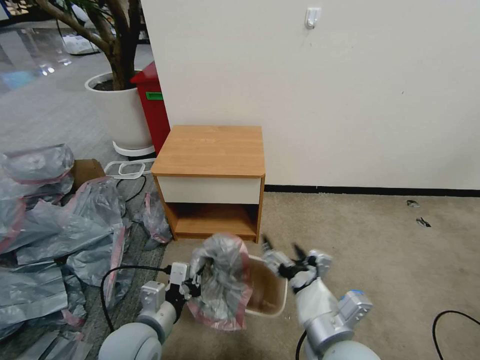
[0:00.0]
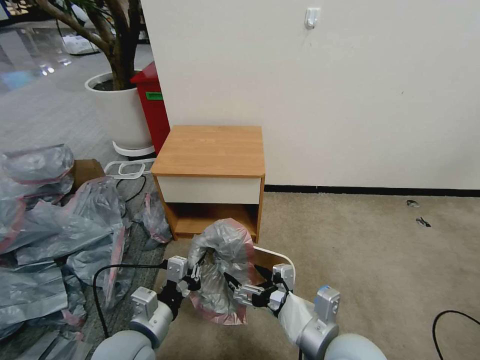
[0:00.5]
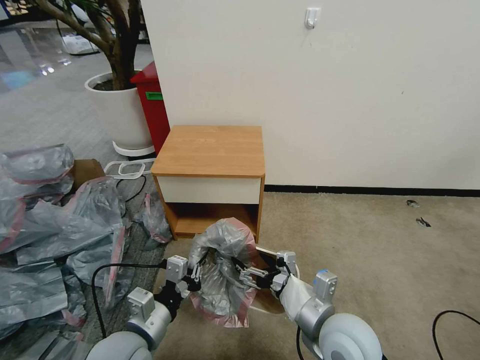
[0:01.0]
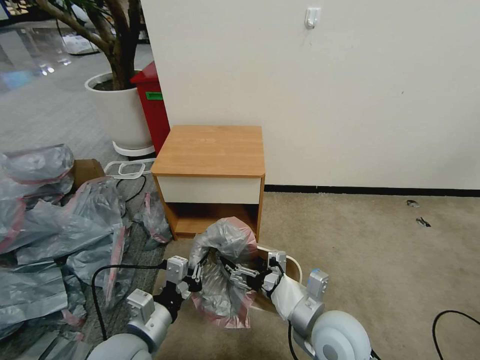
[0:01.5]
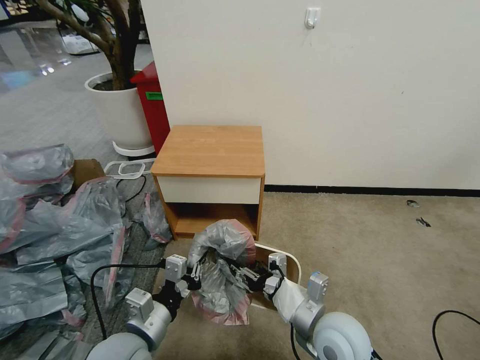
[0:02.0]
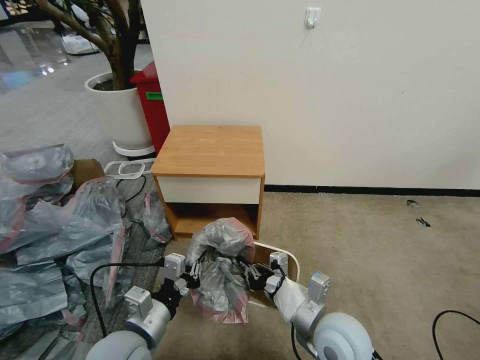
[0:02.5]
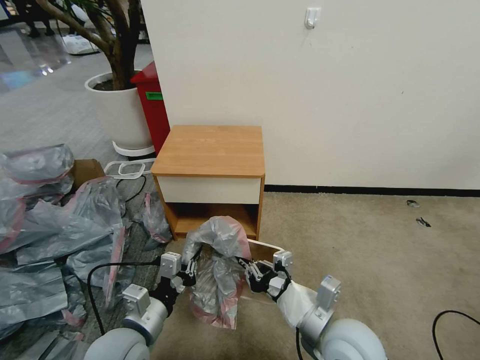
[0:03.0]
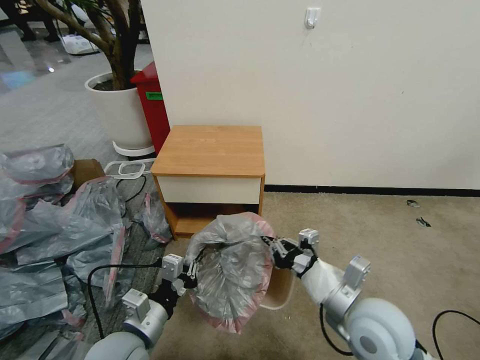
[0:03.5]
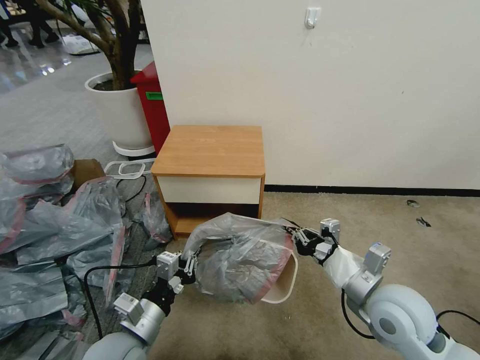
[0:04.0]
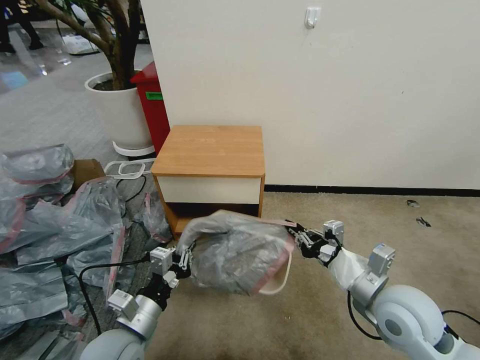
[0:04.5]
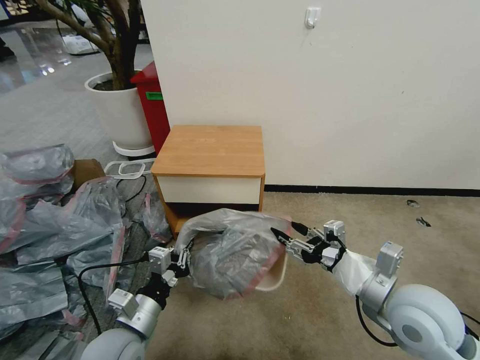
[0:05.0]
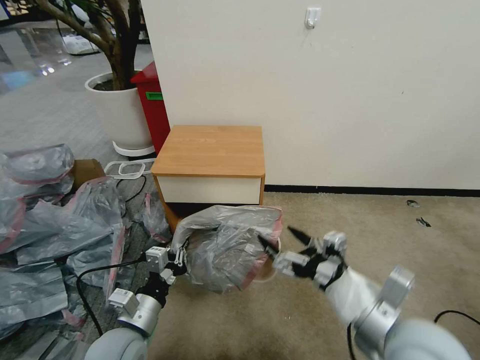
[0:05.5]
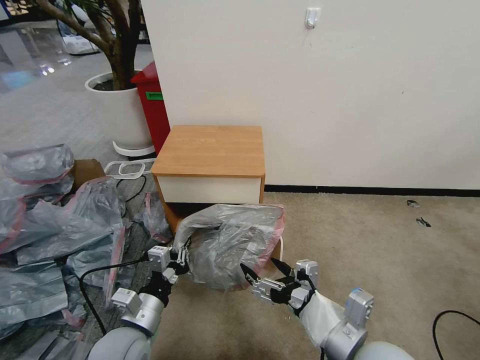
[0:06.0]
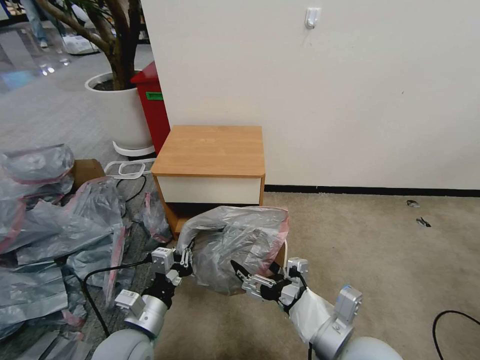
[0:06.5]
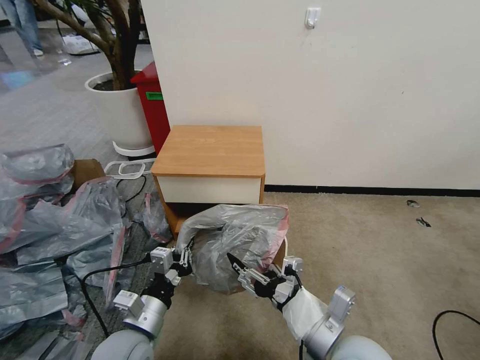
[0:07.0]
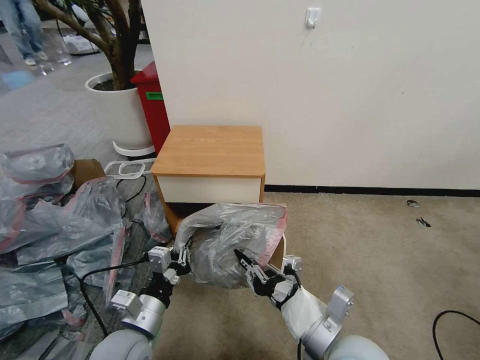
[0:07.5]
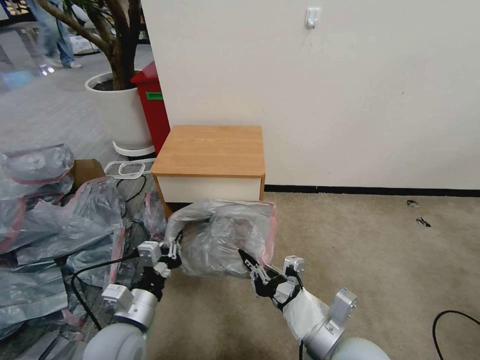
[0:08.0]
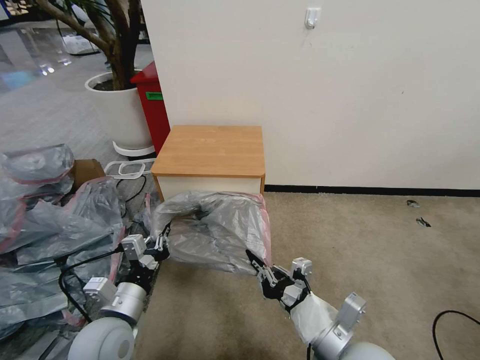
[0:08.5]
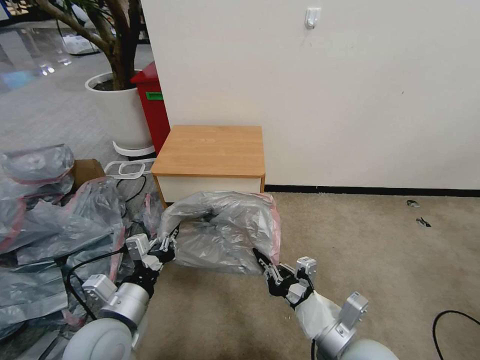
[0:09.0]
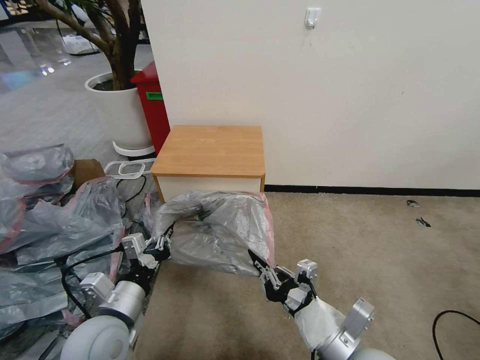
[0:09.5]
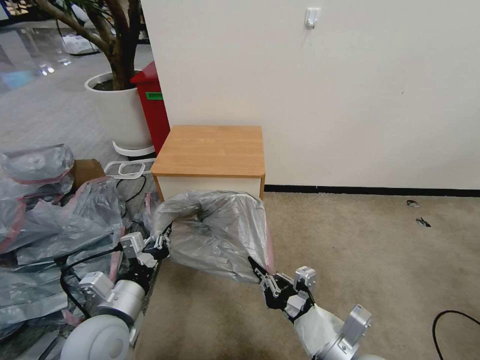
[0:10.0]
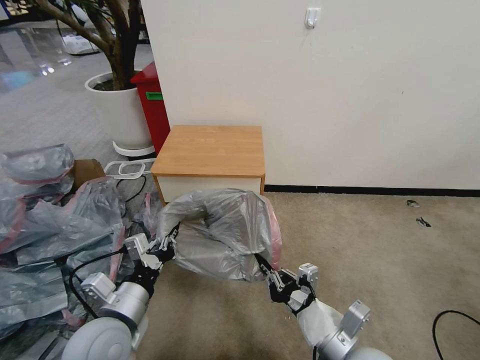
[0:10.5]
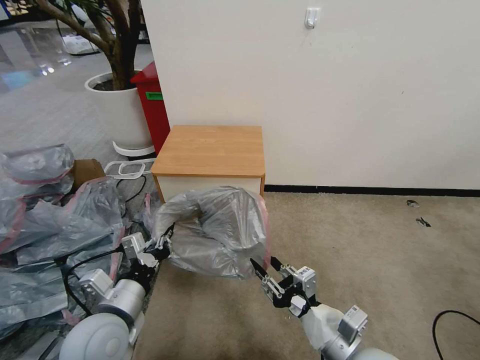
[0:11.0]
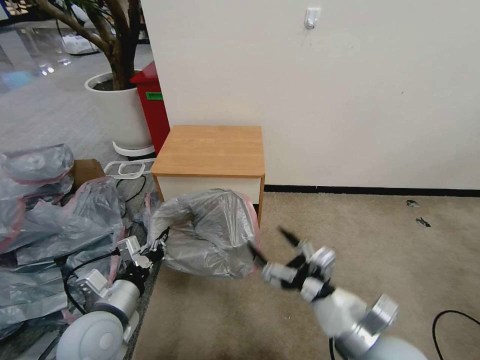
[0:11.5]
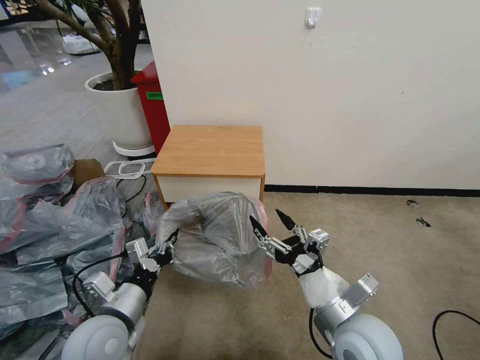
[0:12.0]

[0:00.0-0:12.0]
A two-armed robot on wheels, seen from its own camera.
Task of the whole recording: Pick up the garbage bag from the table and place it over the trash can.
0:00.0 to 0:02.0: The right gripper goes some 10 cm forward and downward, and closes.
0:02.0 to 0:04.0: The right gripper moves to the right and upward, approximately 10 cm, and closes.
0:04.0 to 0:06.0: The right gripper shifts some 10 cm backward and to the left, and opens its fingers.
0:06.0 to 0:08.0: The right gripper closes up.
0:08.0 to 0:10.0: The grippers move only a little.
0:10.0 to 0:12.0: The right gripper heads forward, covering approximately 5 cm, and opens its fingers.

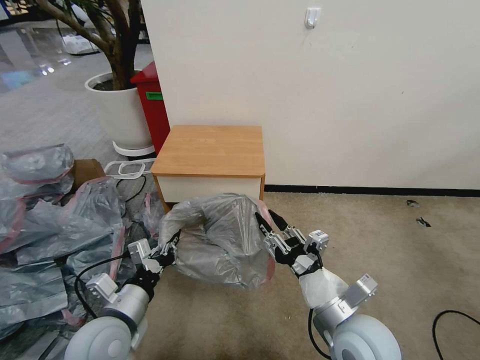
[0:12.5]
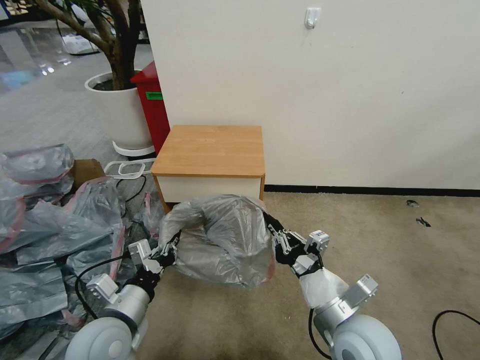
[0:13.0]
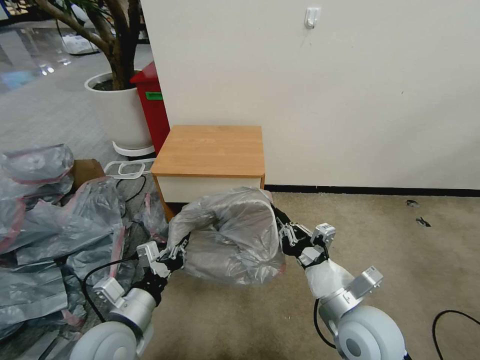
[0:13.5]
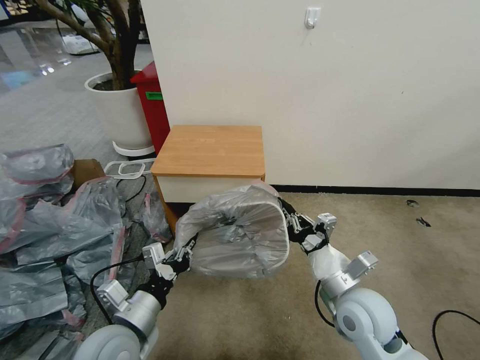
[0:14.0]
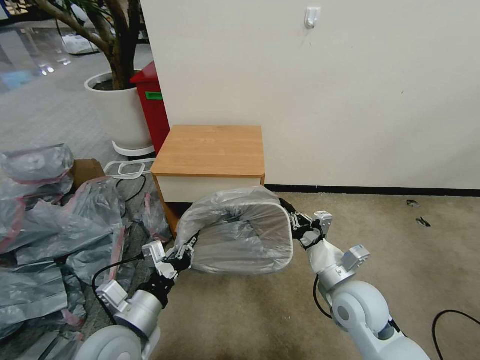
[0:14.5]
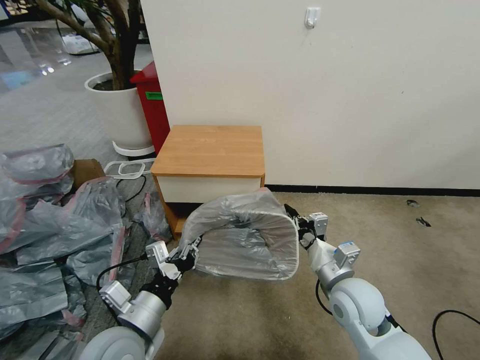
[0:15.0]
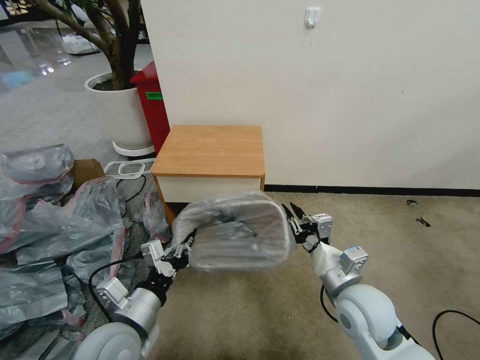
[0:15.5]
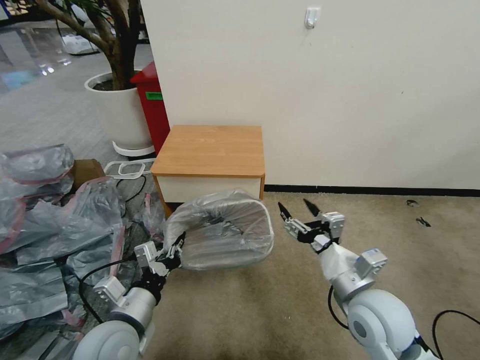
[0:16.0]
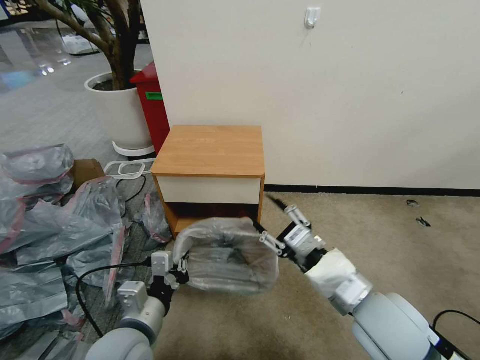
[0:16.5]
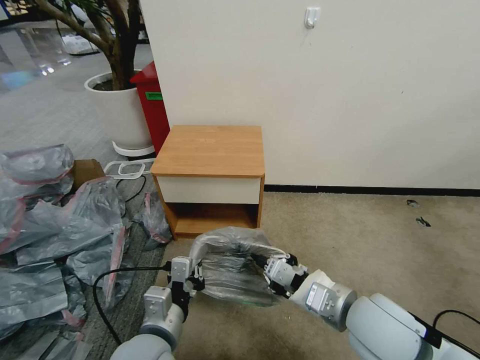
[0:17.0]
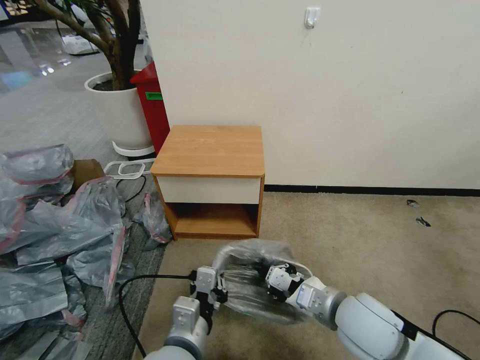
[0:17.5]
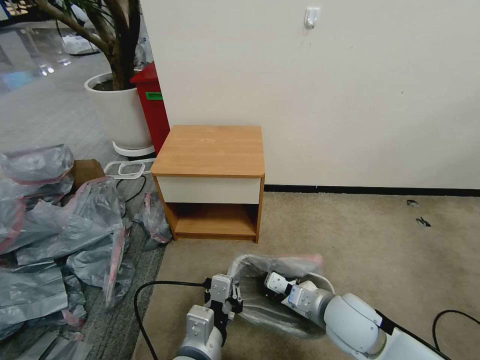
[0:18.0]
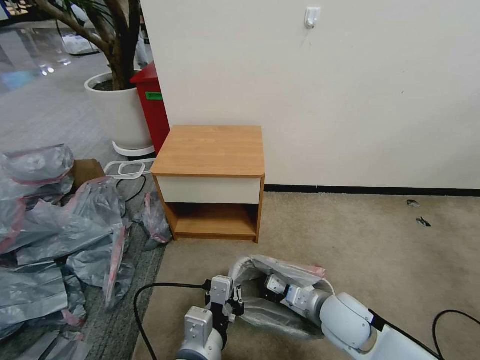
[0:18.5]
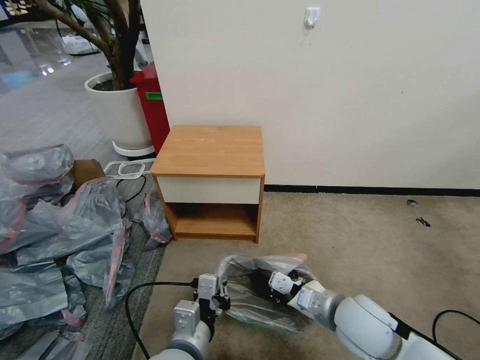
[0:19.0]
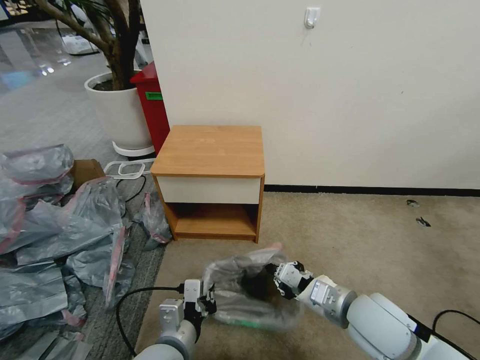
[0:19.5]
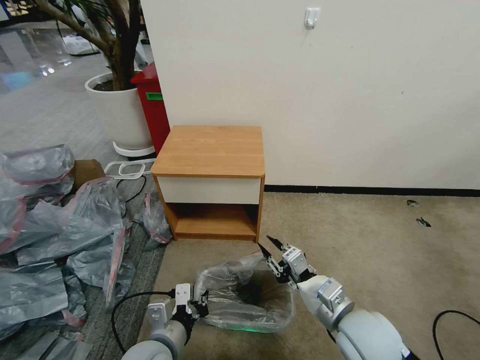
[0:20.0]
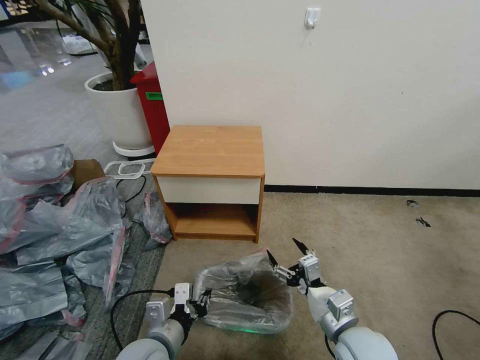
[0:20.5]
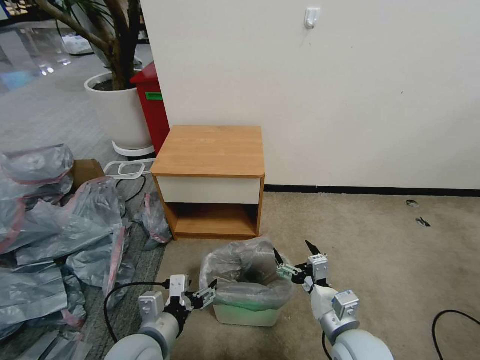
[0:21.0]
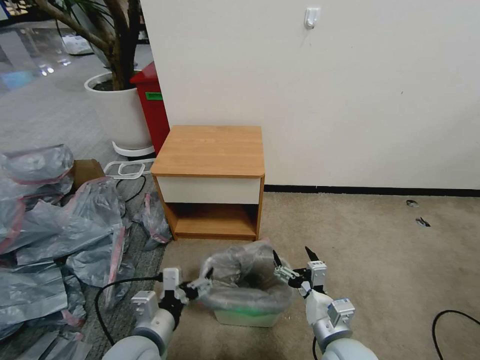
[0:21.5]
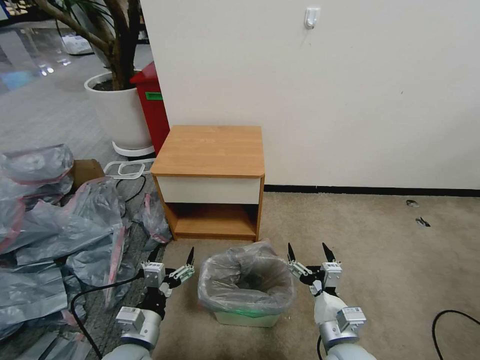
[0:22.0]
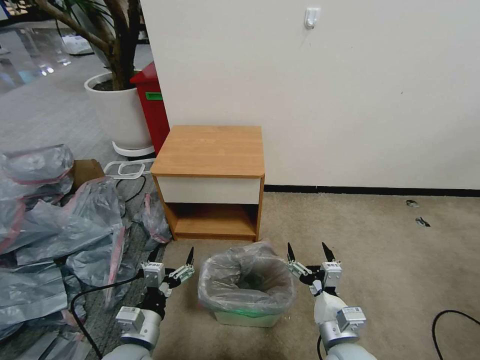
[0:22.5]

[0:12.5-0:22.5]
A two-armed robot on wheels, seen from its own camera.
Task of the whole recording: Pick up the garbage bag from the table and place it over the trash can.
0:12.5 to 0:14.5: The right gripper travels forward by some 5 cm, and closes up.
0:14.5 to 0:16.5: The right gripper moves upward and backward, some 10 cm, and opens up.
0:16.5 to 0:18.5: The left gripper shifts some 10 cm to the right. The right gripper goes approximately 15 cm downward, and closes up.
0:18.5 to 0:20.5: The left gripper moves to the left and downward, approximately 10 cm, while the right gripper heads backward, covering about 5 cm, and opens.
0:20.5 to 0:22.5: The left gripper moves approximately 5 cm, and opens.

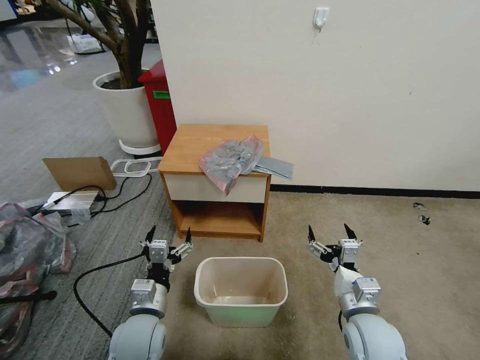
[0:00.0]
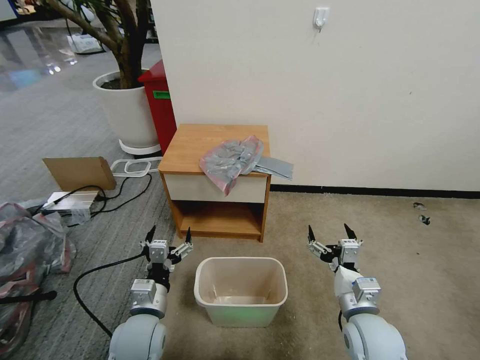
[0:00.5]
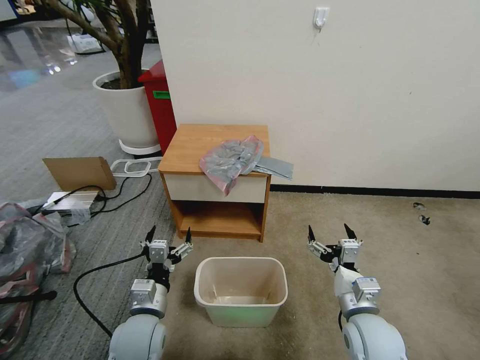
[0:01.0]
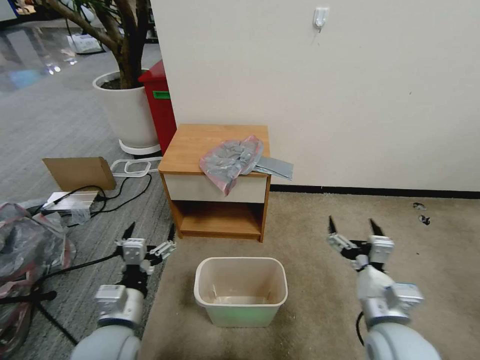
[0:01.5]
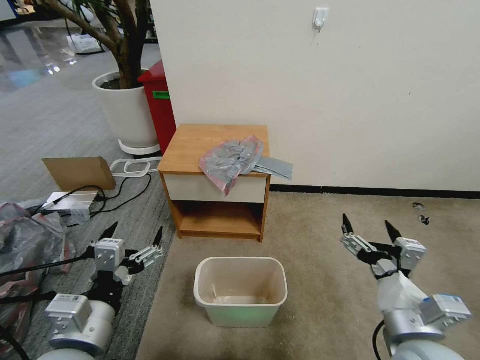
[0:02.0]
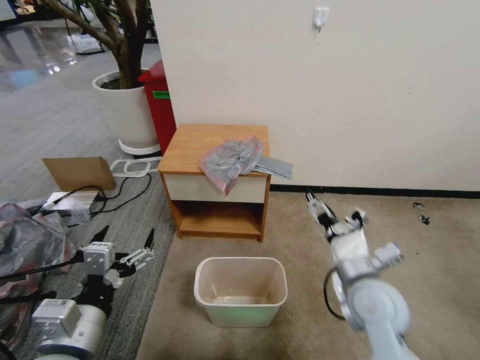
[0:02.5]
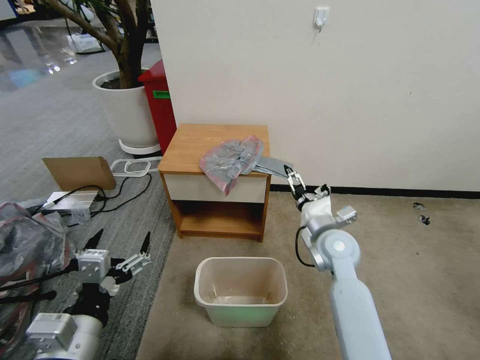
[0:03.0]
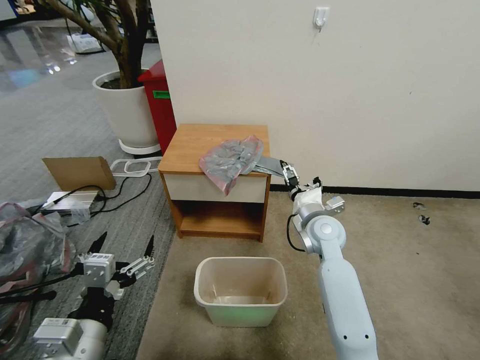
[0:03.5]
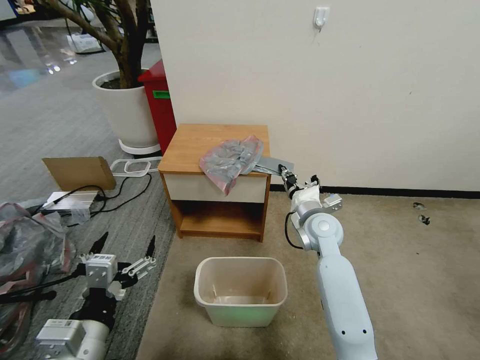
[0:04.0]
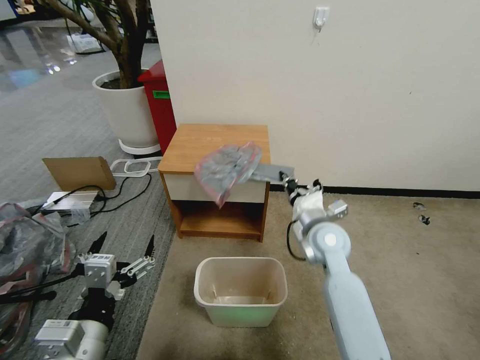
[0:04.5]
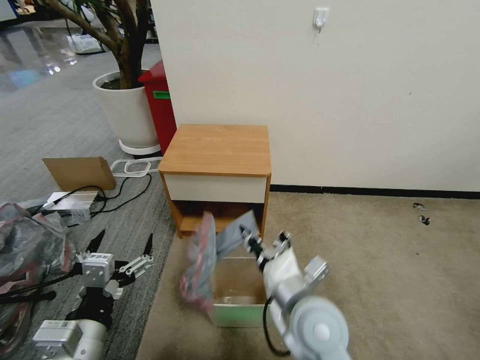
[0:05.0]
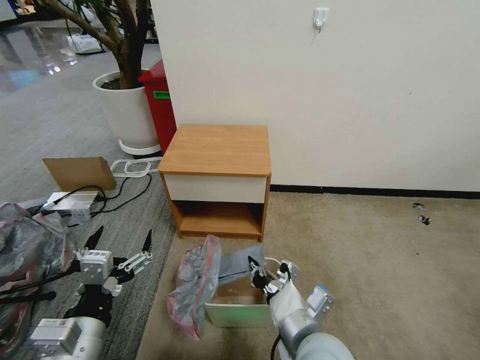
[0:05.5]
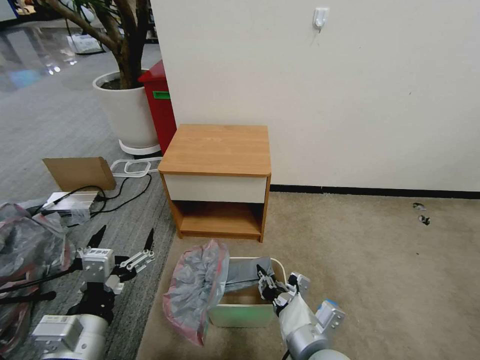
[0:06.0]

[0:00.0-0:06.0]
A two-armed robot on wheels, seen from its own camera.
Task of the whole recording: Pick up the garbage bag from the table and place it over the trash can.
0:02.0 to 0:04.0: The right gripper goes some 30 cm forward, and closes its fingers.
0:04.0 to 0:06.0: The right gripper moves backward, some 30 cm.
